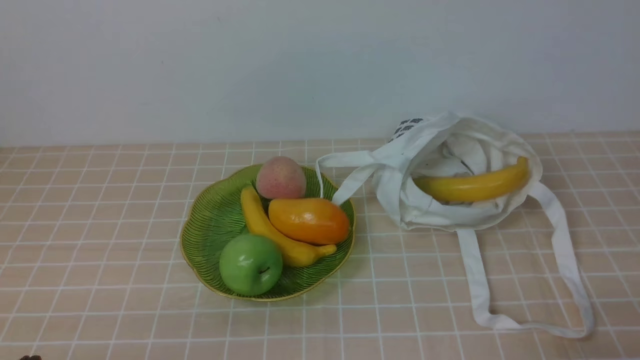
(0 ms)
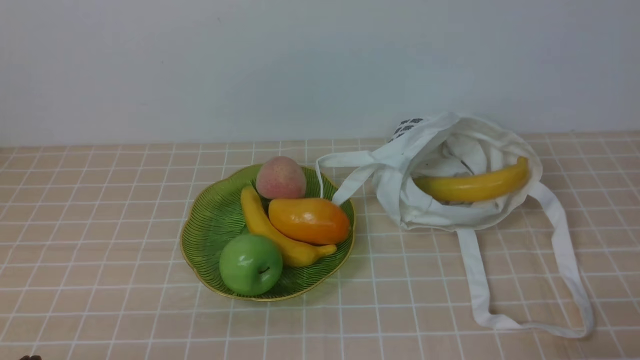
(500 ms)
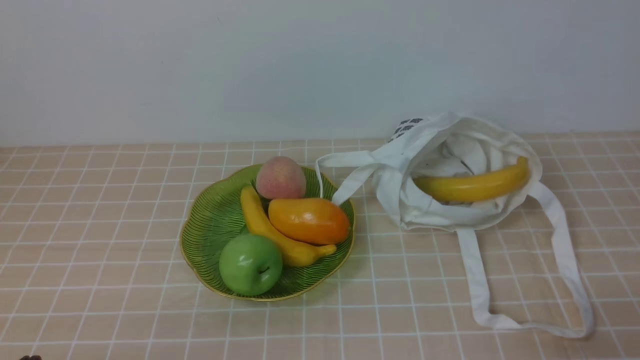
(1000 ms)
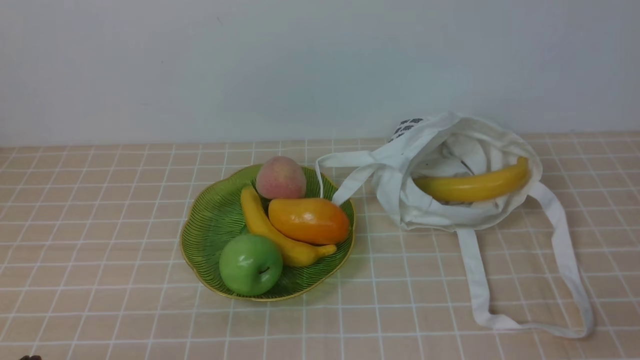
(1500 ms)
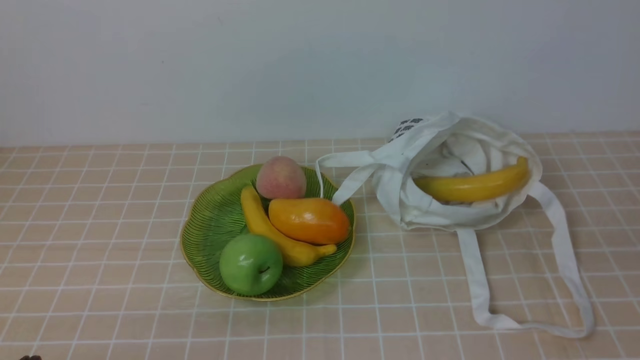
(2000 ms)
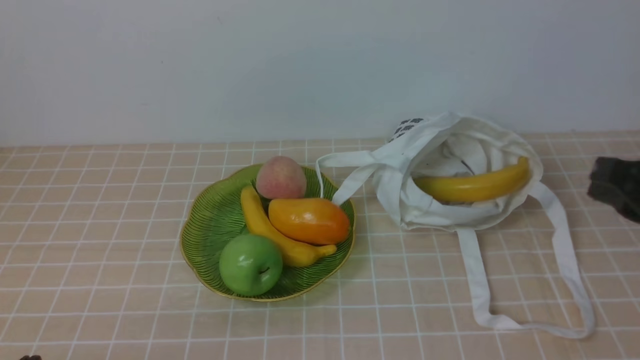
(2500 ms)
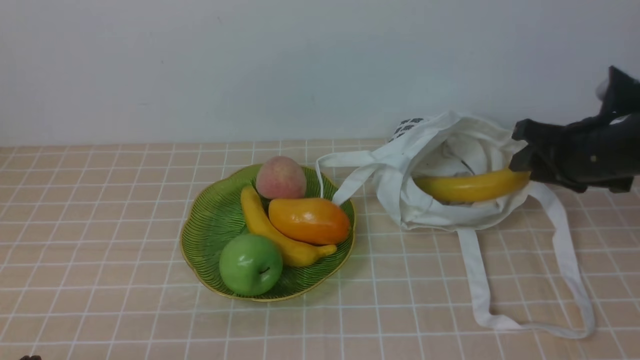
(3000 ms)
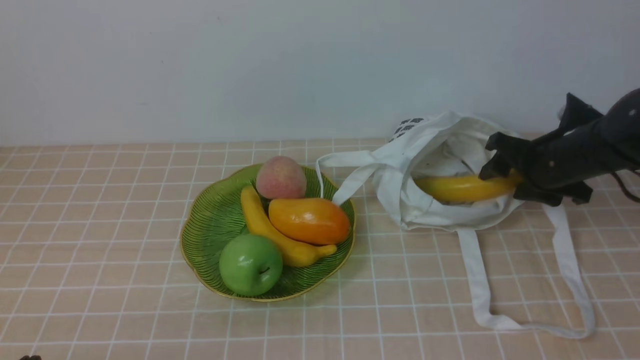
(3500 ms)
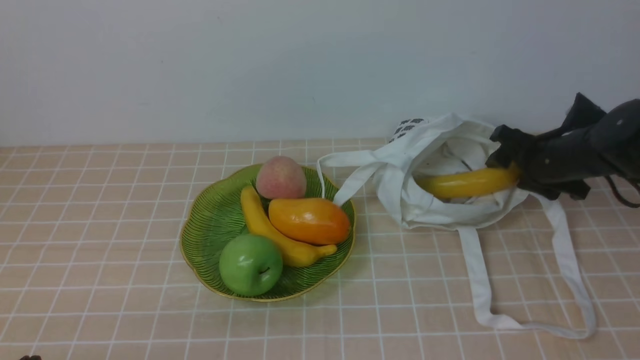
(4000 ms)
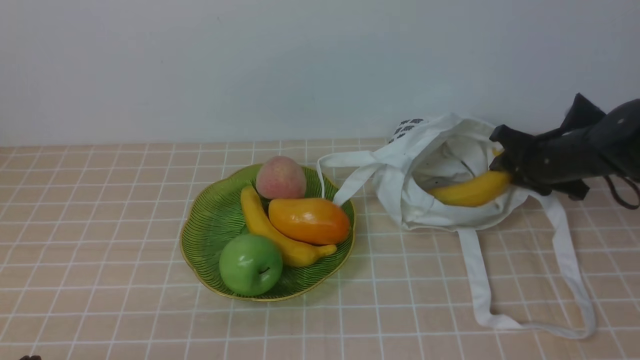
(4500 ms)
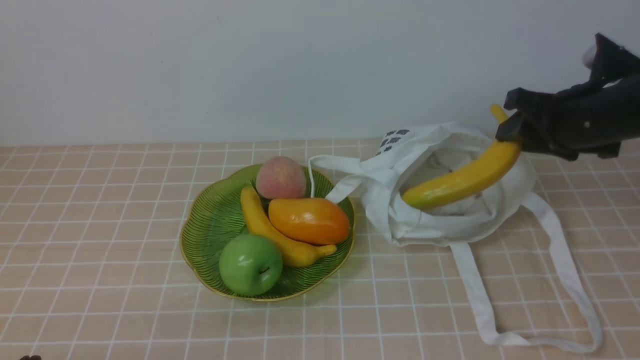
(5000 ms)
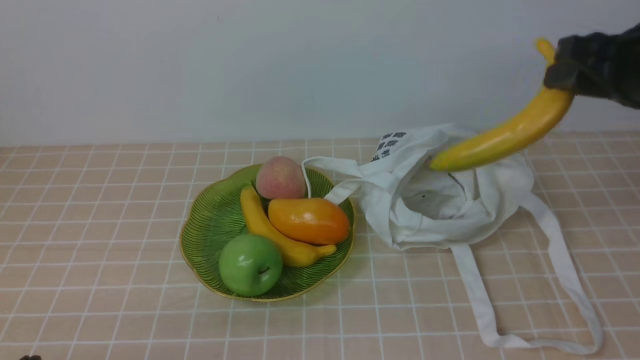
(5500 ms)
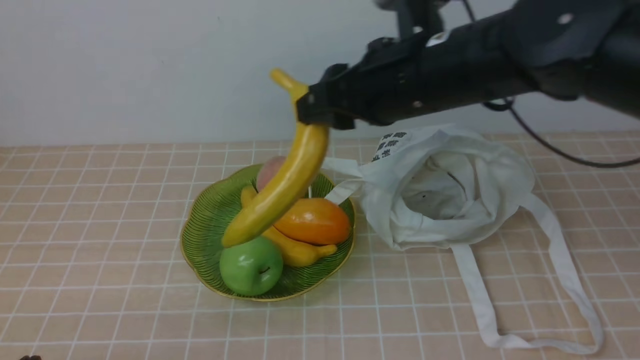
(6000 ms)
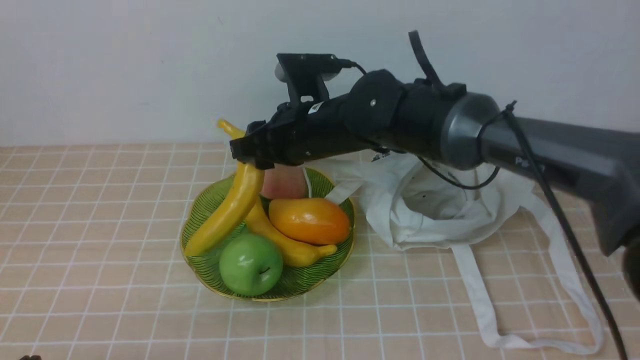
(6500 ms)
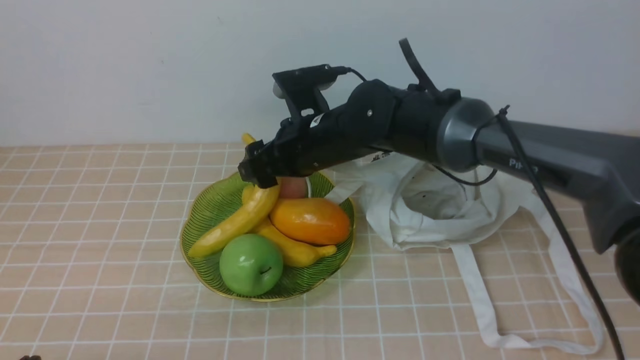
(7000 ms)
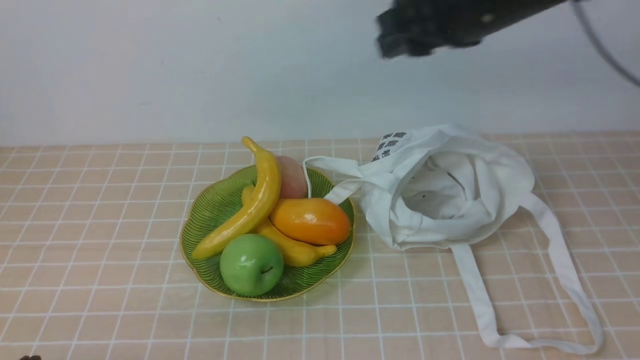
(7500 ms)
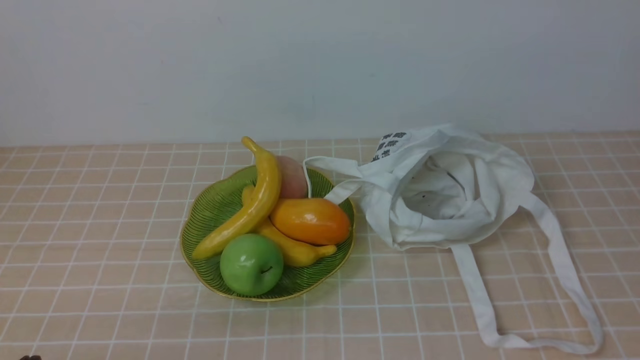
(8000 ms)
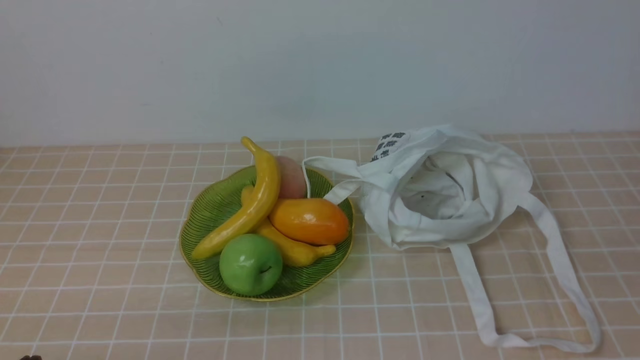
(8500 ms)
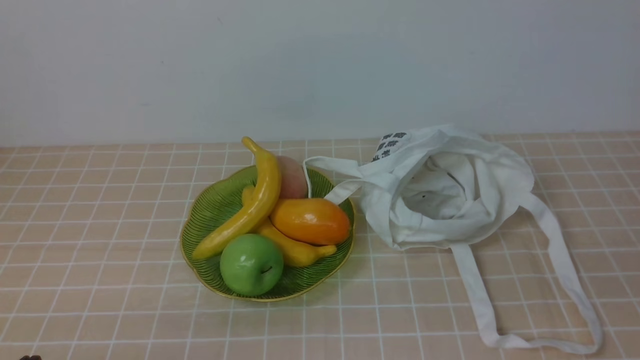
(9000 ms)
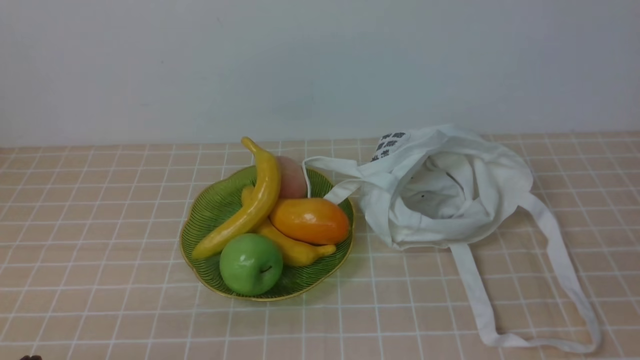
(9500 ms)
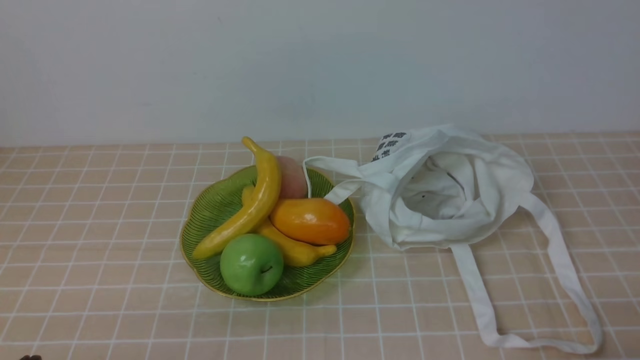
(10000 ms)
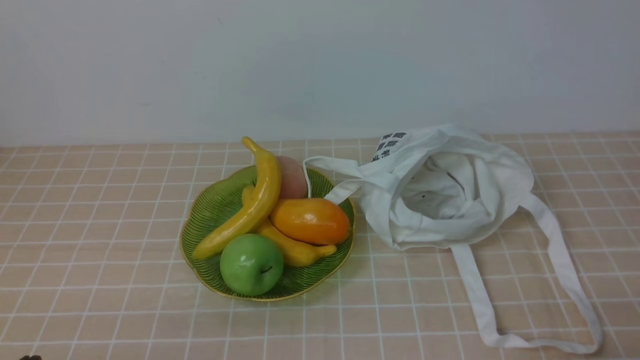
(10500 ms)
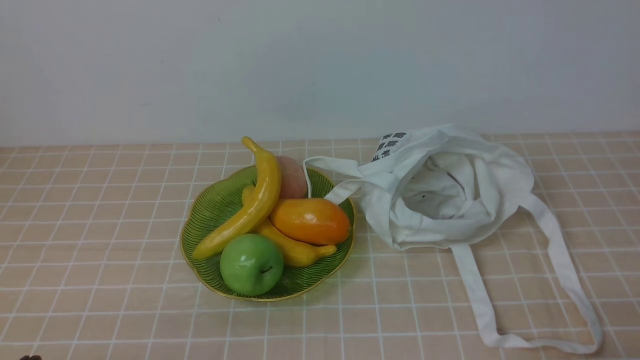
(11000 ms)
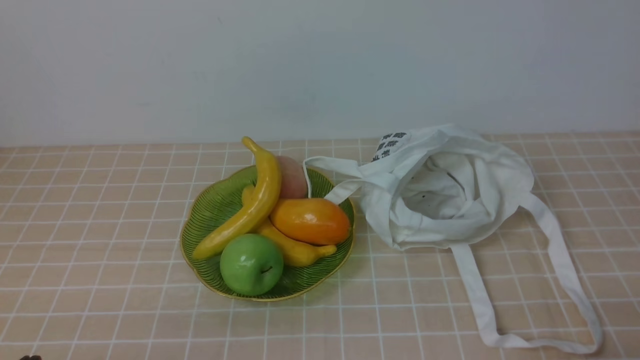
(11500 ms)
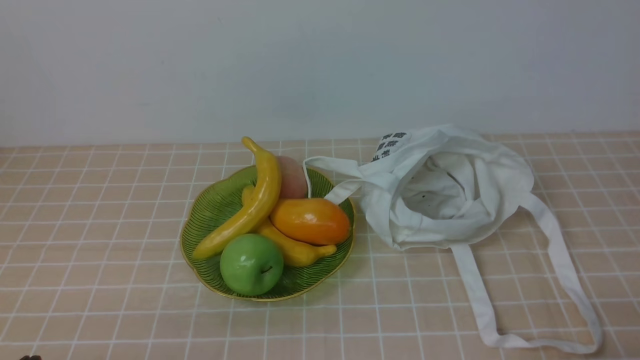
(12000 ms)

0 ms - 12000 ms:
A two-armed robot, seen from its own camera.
Step, 0 ms - 5000 ms: use the right arm to grab a banana from the bag.
Step, 5500 ms - 7000 ms: use the right arm to put the banana into the empty plate on the right.
2000 ms - 4000 ms: The right gripper is displaced forward by roughly 35 cm, and opens.
4000 ms - 6000 ms: The right gripper shifts about 25 cm upward, to the left and backward, and closes up.
6000 ms - 8000 ms: The right gripper heads to the right, backward and upward, covering roughly 30 cm, and closes.
10000 ms - 12000 ms: The two grippers keep their place.
